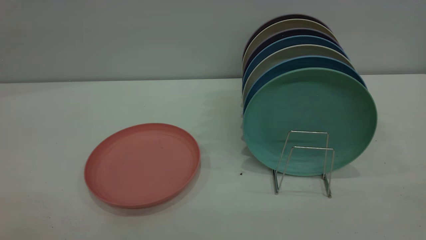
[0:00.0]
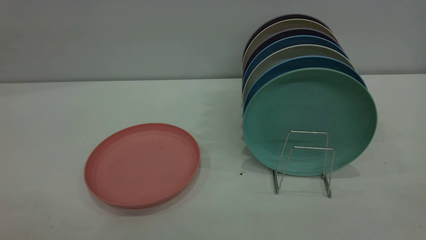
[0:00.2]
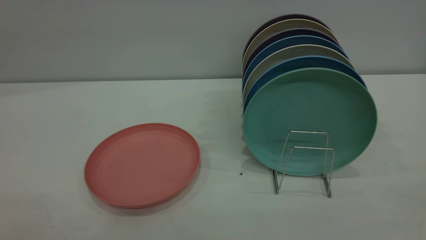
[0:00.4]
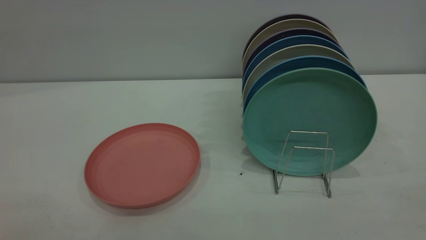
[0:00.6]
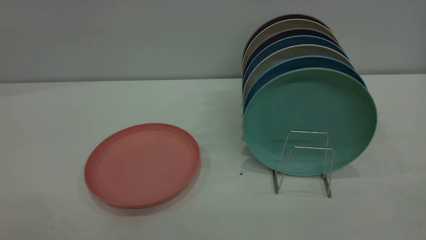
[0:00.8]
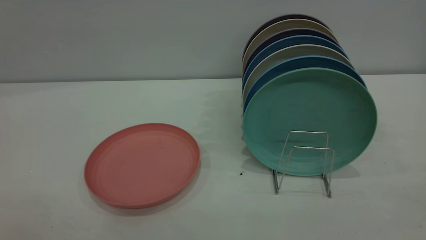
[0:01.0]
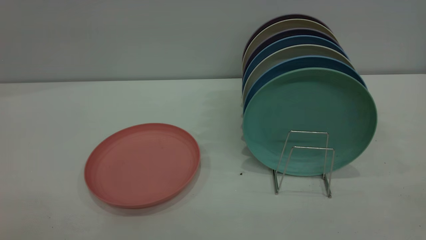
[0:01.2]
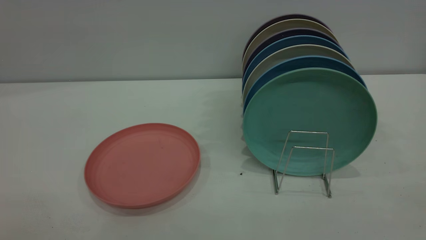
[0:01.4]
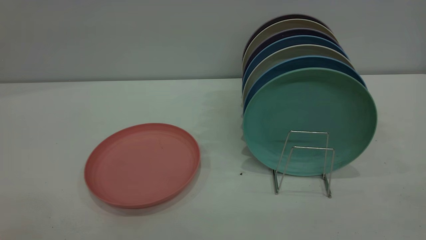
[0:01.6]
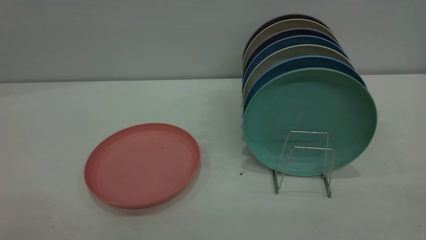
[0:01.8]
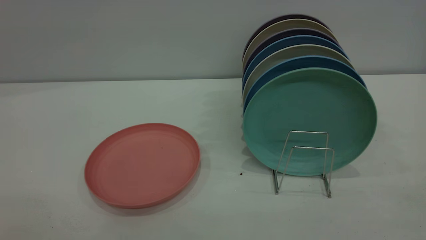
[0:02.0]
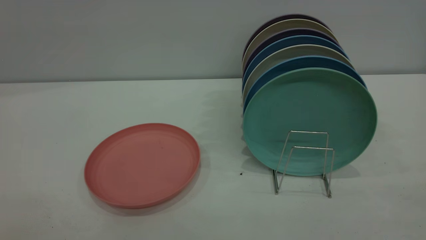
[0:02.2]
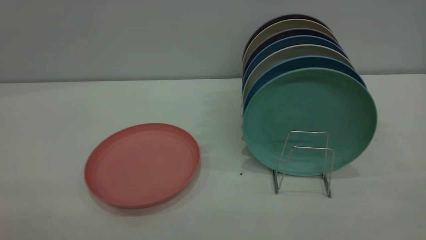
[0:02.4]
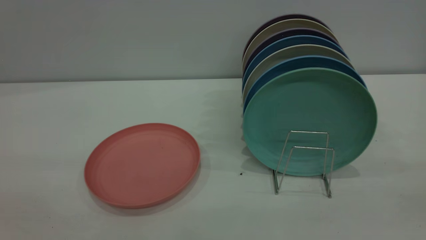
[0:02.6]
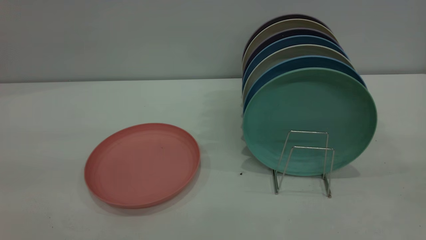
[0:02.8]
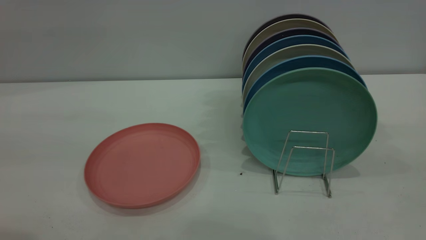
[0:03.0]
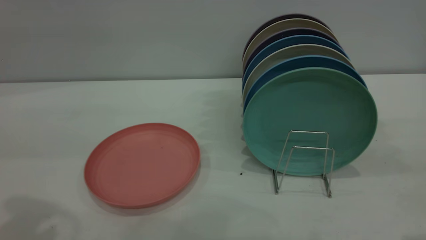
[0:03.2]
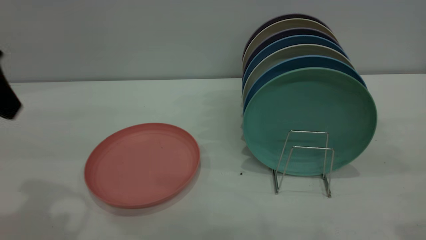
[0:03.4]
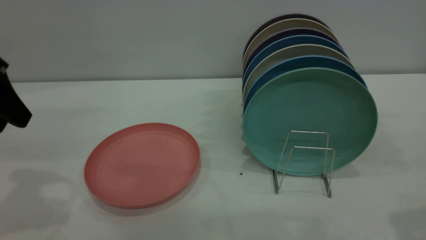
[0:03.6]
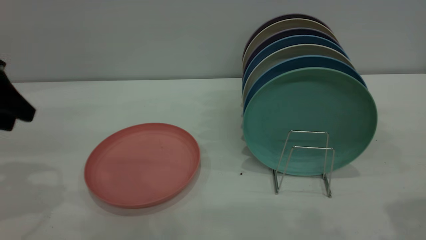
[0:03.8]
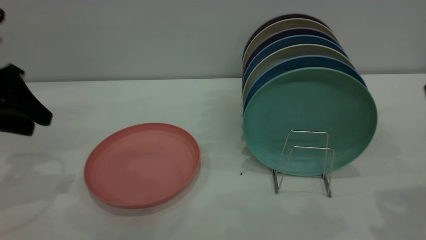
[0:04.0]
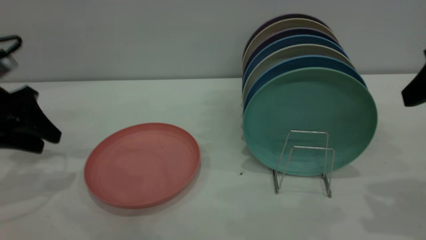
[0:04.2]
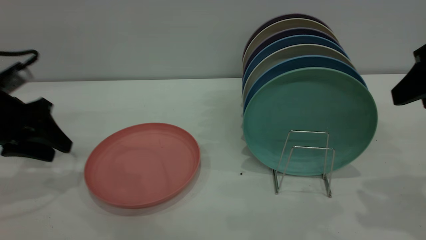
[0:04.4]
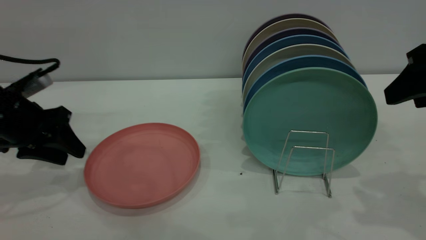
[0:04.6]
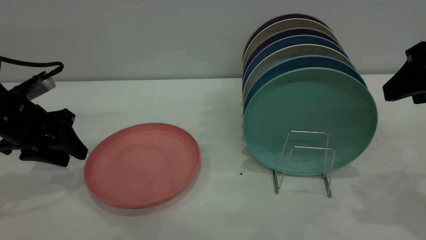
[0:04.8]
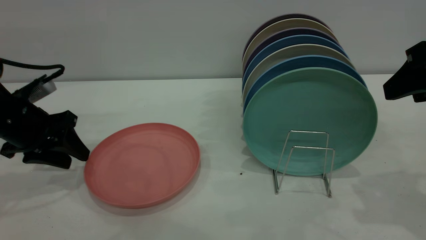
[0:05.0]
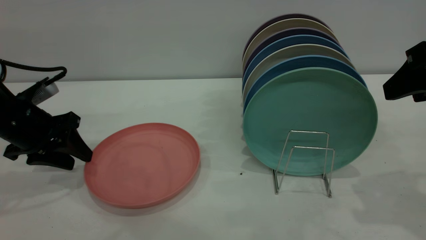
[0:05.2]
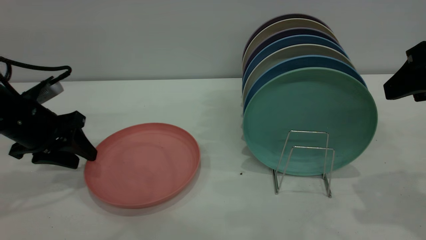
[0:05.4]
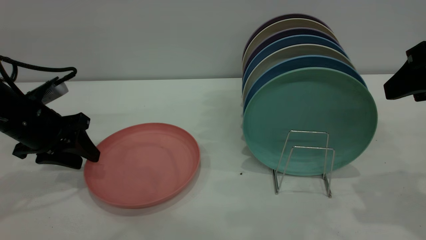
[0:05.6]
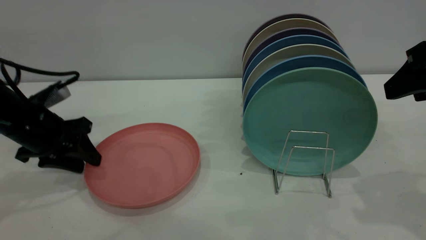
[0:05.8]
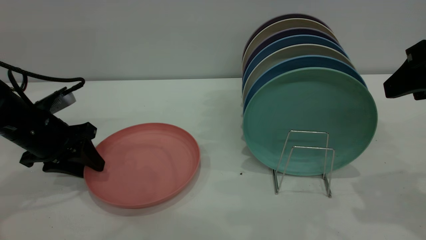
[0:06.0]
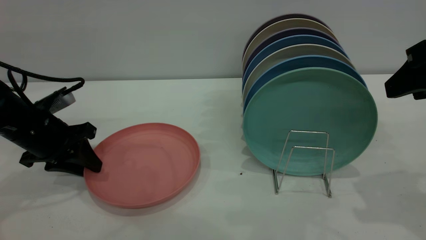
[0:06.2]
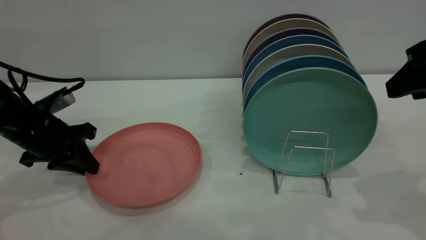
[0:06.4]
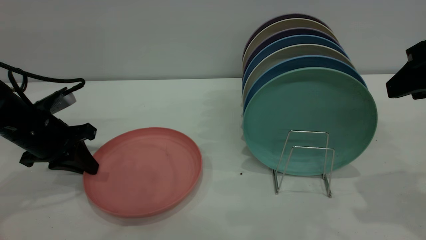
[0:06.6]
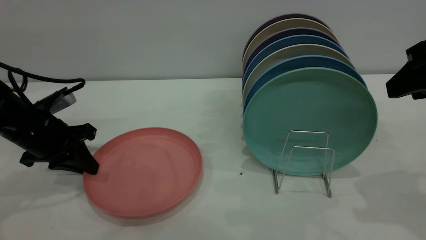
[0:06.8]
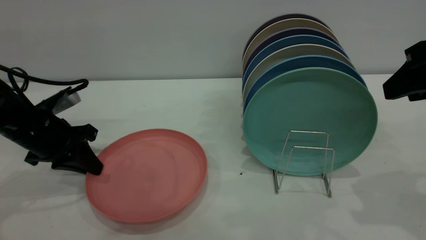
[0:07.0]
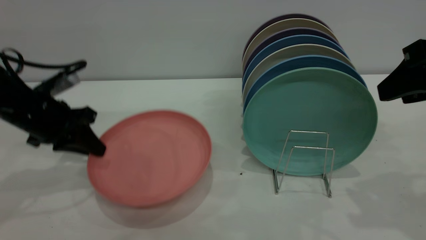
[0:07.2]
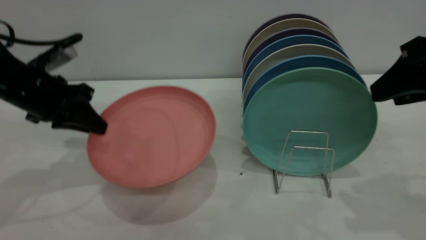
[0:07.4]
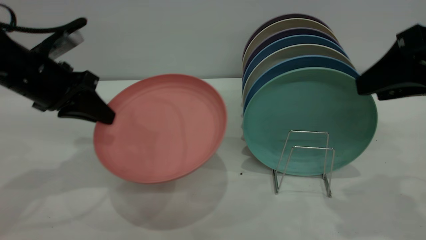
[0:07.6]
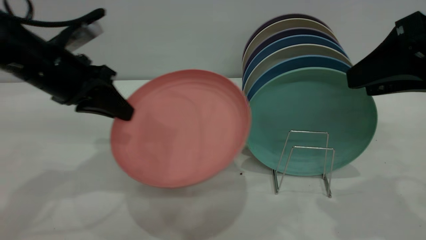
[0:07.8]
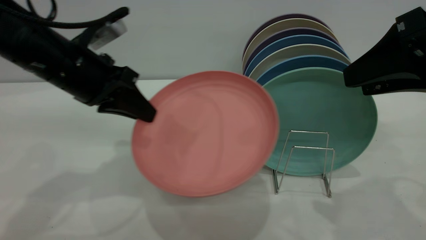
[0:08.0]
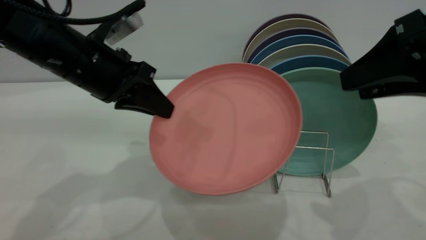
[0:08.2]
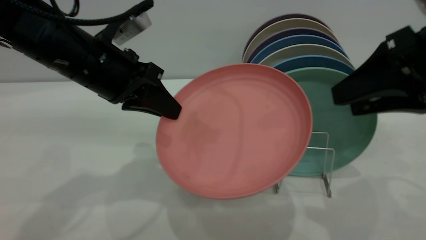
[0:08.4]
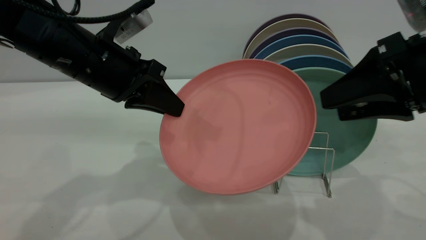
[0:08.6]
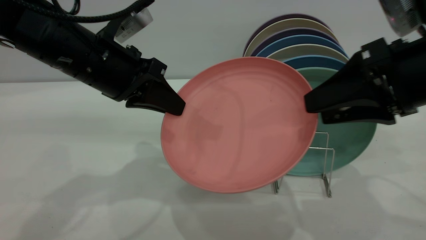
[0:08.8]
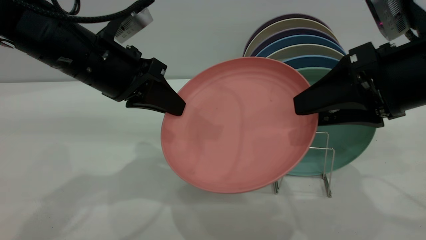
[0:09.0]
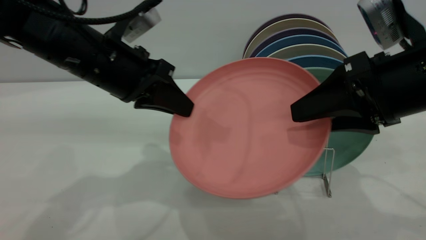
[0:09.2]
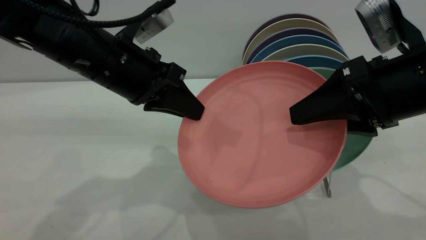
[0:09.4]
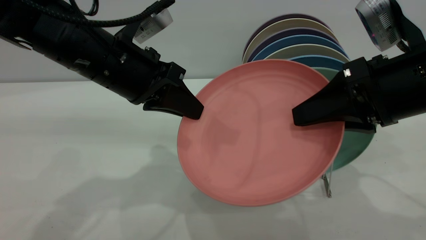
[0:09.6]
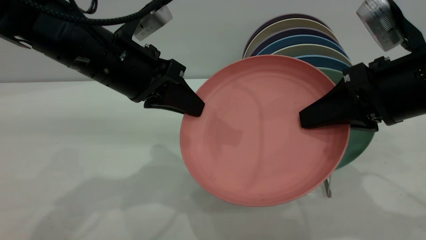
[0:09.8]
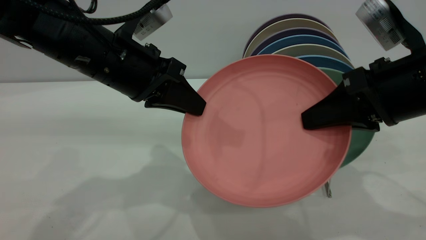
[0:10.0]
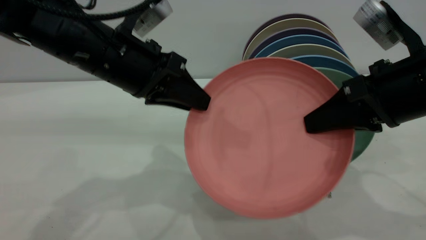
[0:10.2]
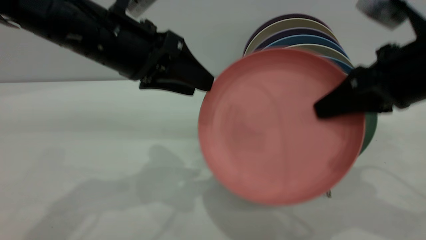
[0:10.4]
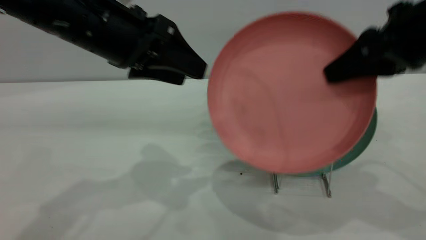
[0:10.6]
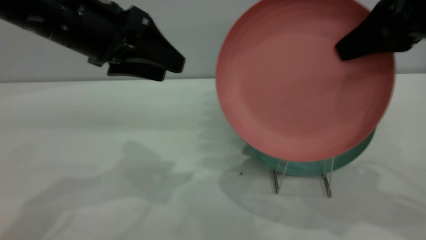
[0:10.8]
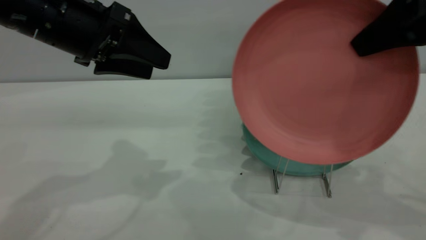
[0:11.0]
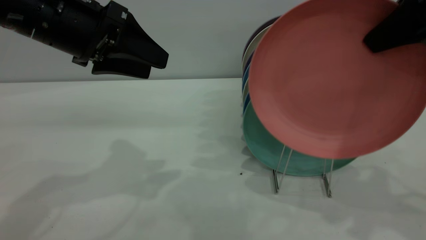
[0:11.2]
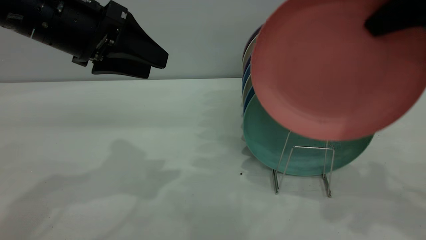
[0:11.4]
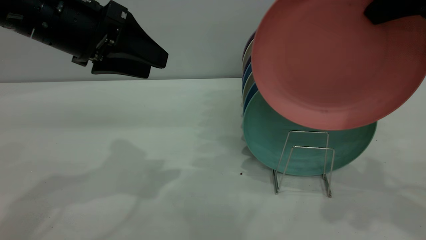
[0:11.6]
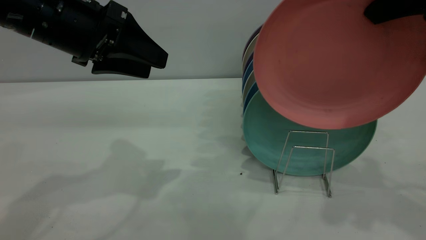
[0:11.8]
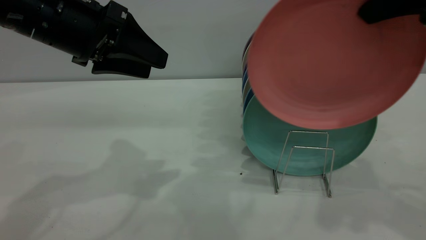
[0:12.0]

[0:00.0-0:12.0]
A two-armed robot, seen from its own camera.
Task of the whole recording: put the plate on the plate rack.
Step, 0:00.0 to 0:07.2: Pick up the plate with the left gripper.
Step, 0:07.4 to 0:10.6: Pass the plate from the left gripper to the right gripper.
0:00.0 to 0:01.6: The two grippers keep their place.
0:03.0 to 0:04.4: The right gripper moves forward and downward, some 15 cm. Meanwhile the left gripper moves downward and forward, approximately 30 cm.
0:04.4 to 0:06.0: The left gripper shifts by approximately 5 cm.
0:06.0 to 0:07.6: The left gripper goes about 10 cm upward, and closes.
0:07.6 to 0:09.0: The left gripper travels to the right by approximately 10 cm. The right gripper shifts by roughly 5 cm.
0:09.0 to 0:10.4: The left gripper opens up. Meanwhile the right gripper closes its fingers.
0:10.4 to 0:12.0: The right gripper is displaced upward by some 10 cm, while the left gripper moves to the left, about 5 cm.

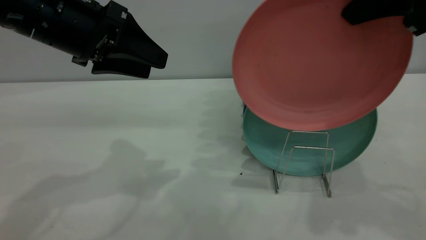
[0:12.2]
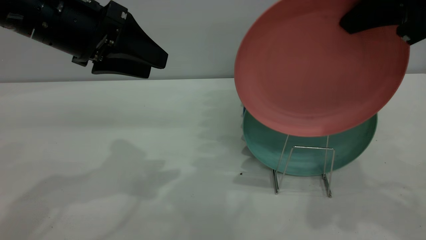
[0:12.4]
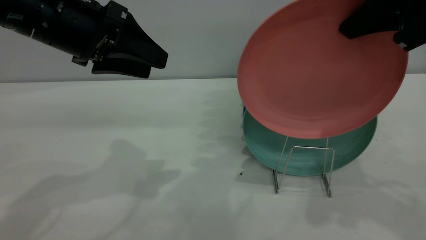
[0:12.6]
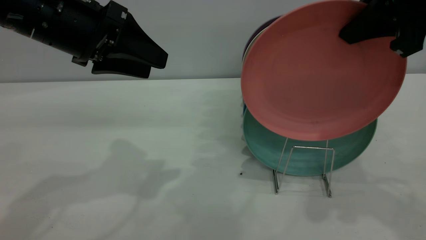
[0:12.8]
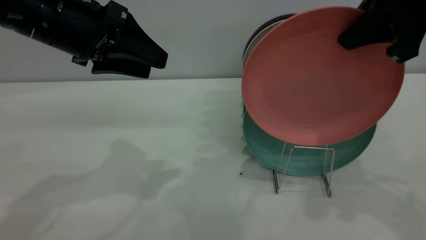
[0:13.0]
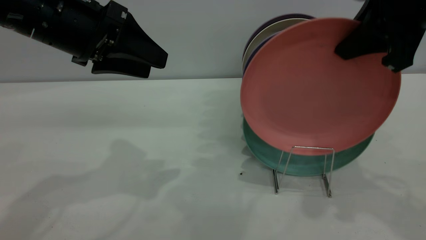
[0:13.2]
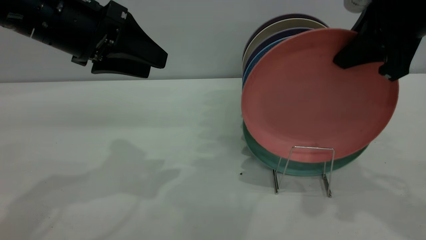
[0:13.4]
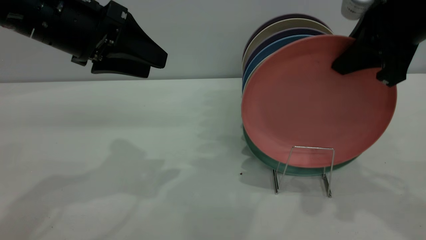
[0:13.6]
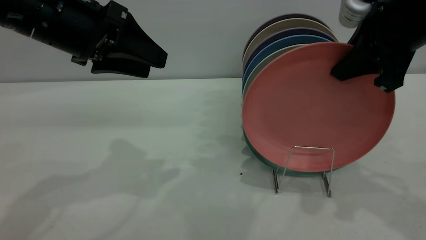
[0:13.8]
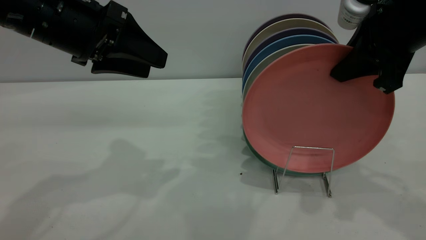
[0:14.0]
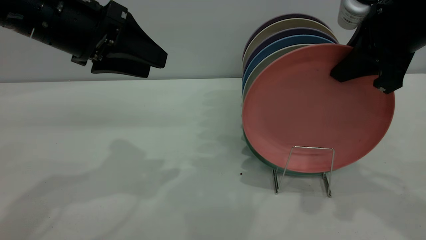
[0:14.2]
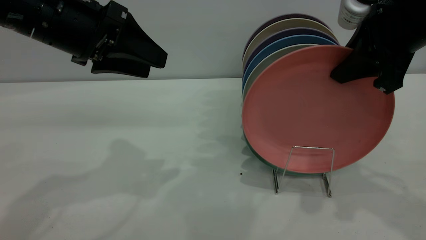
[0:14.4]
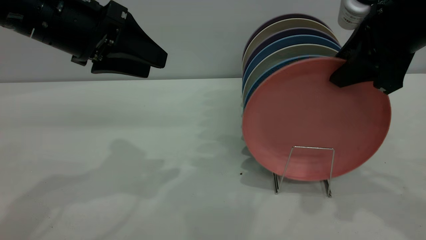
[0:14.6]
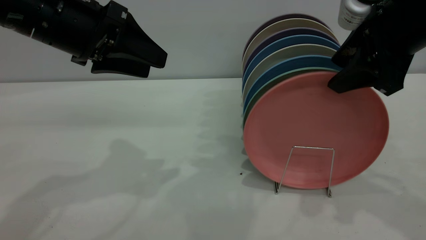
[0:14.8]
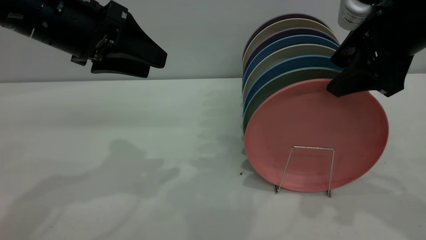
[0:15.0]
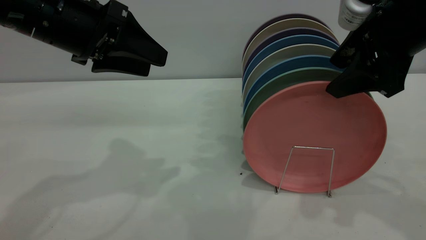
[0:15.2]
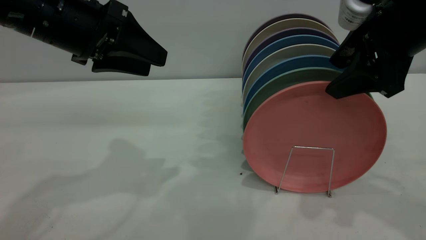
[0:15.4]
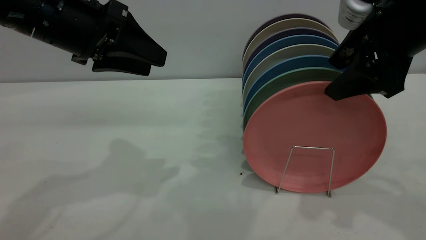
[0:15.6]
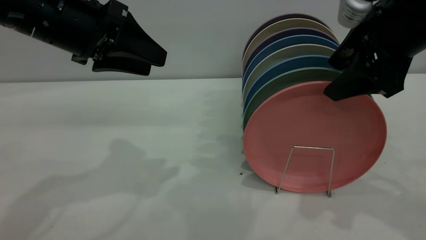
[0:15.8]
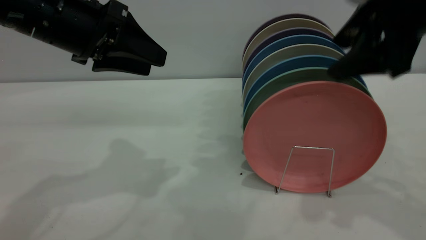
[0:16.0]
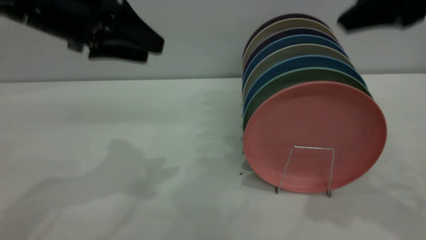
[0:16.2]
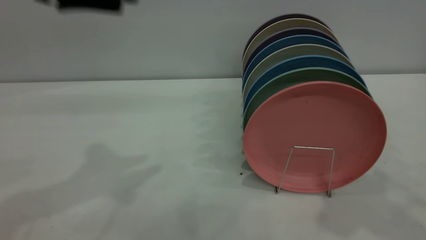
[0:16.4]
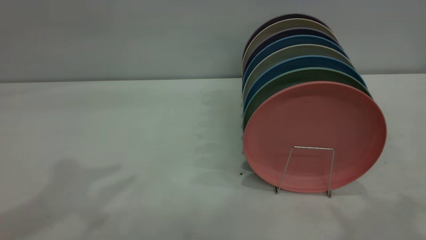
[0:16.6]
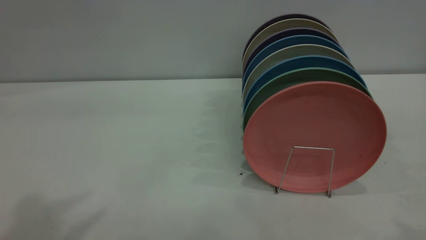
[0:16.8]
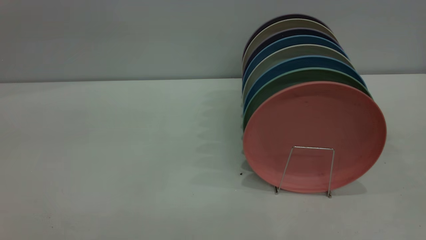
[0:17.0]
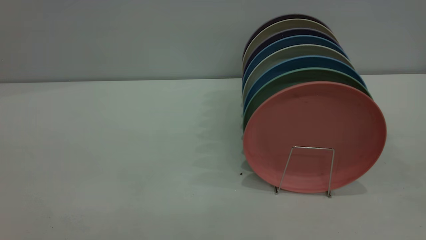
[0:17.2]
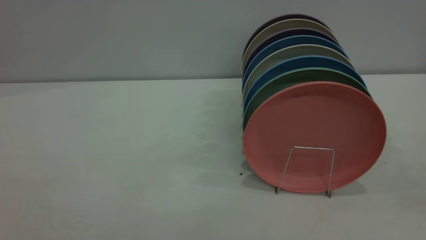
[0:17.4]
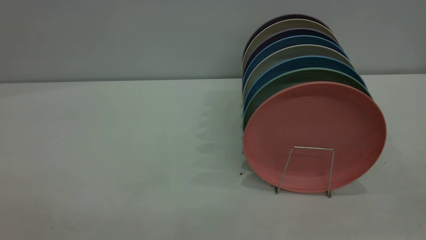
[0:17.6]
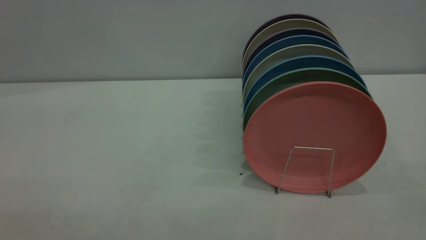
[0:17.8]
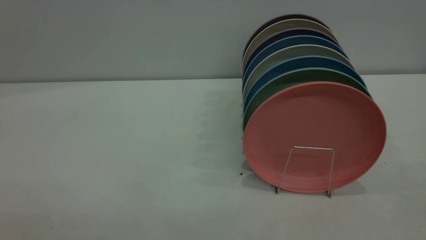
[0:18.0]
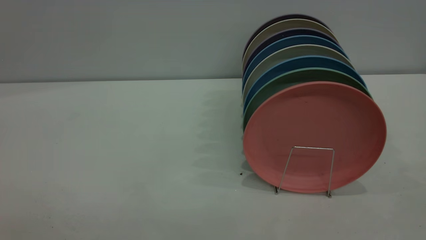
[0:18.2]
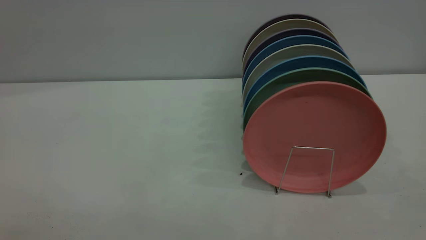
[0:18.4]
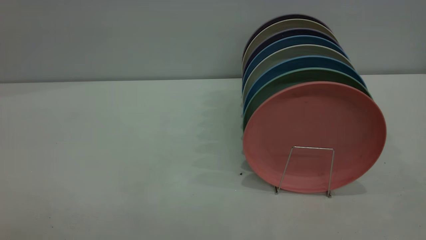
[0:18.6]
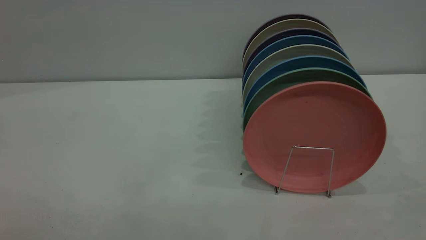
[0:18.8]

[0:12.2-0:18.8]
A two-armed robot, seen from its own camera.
Task of the whole recording: put the plate on the plate rack.
Step, 0:12.2 to 0:16.2: Place the plate on the shelf.
0:12.2 to 0:13.8: The right gripper heads downward, covering approximately 5 cm.
0:13.8 to 0:15.4: The right gripper opens up.
0:15.4 to 0:17.2: Both grippers move backward and upward, approximately 30 cm.
